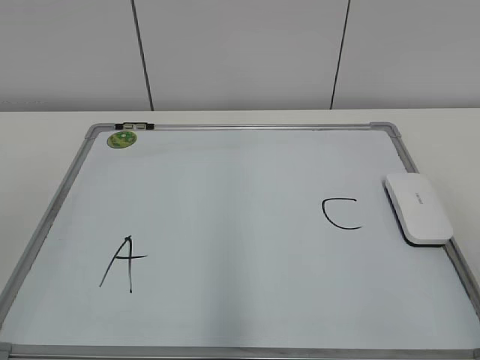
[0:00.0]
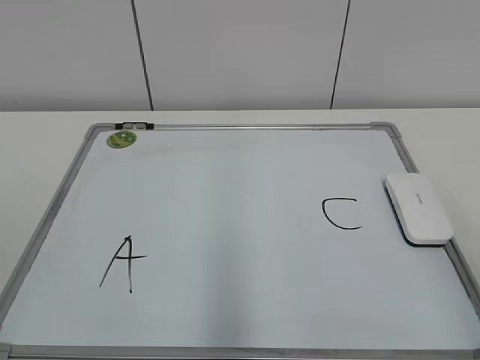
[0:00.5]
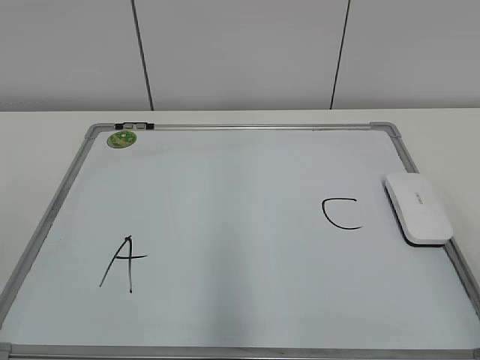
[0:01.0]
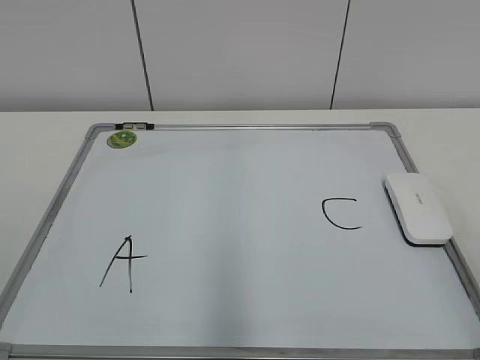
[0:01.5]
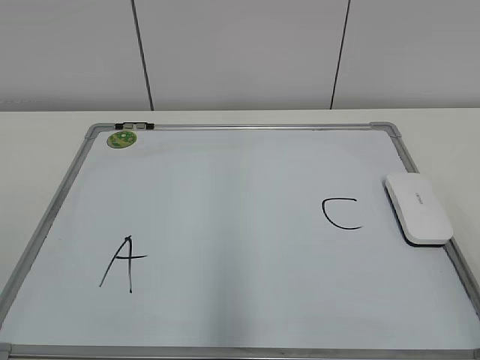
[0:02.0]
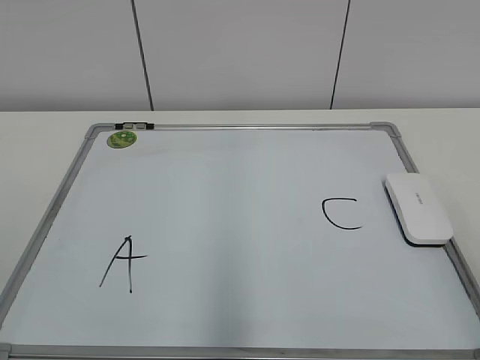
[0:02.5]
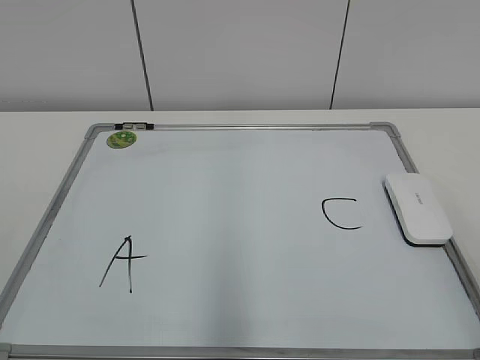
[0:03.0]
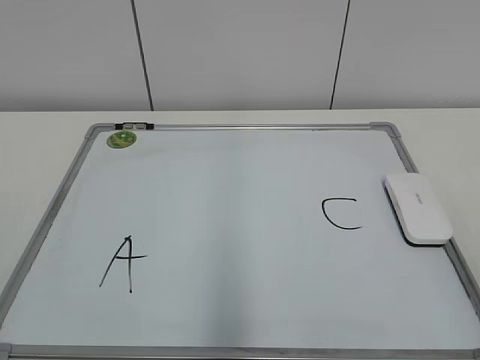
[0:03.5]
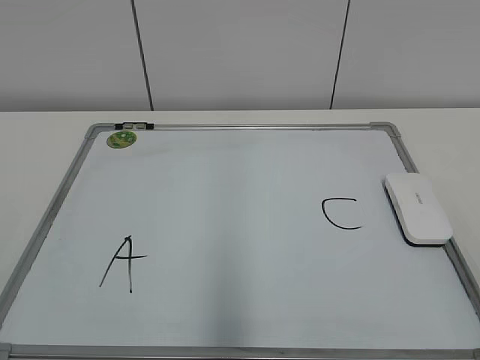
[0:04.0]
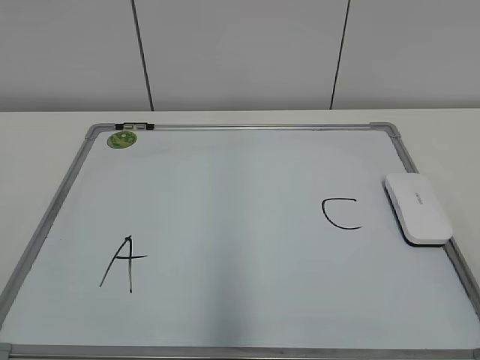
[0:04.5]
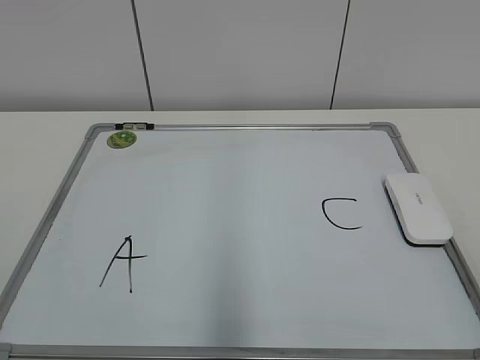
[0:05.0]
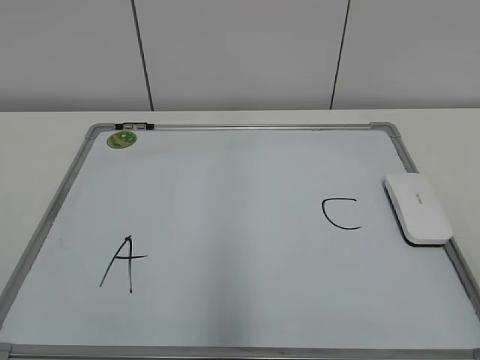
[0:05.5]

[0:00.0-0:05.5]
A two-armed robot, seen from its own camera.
Task of the whole recording: pick up the eraser on the blackboard and erase the letter "B".
0:03.5 to 0:05.5: Neither gripper changes place.
